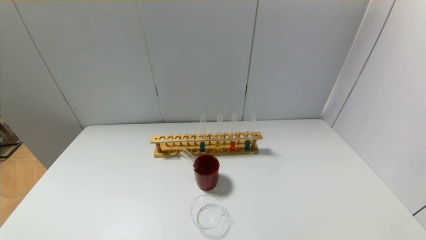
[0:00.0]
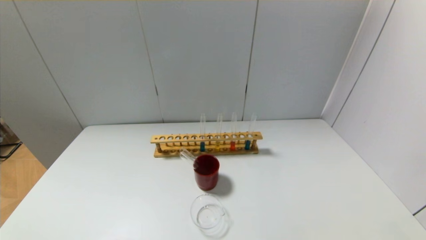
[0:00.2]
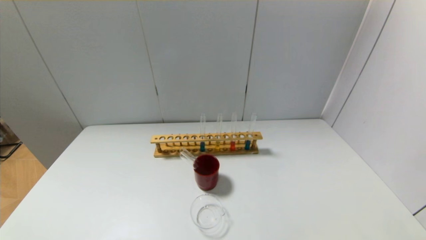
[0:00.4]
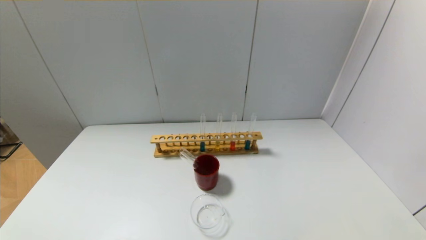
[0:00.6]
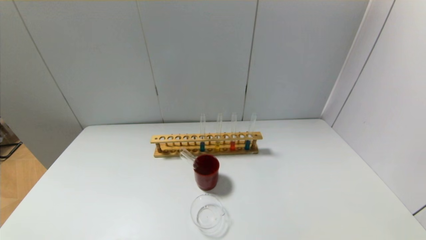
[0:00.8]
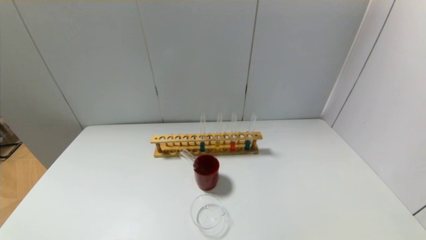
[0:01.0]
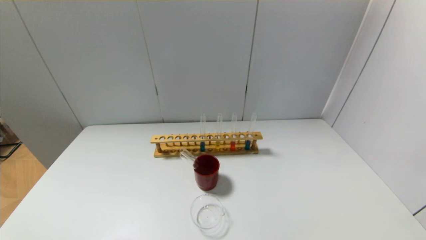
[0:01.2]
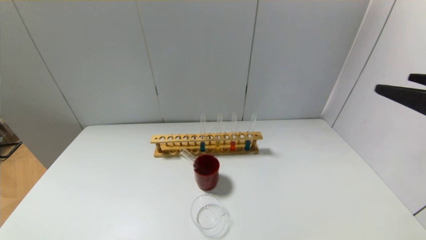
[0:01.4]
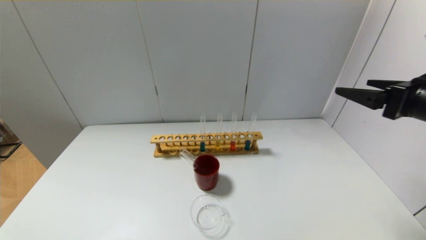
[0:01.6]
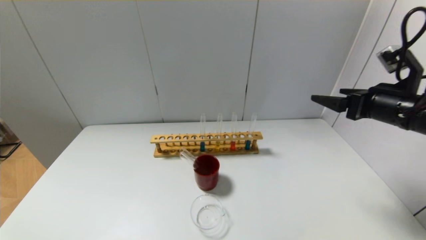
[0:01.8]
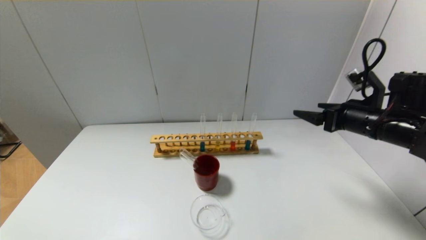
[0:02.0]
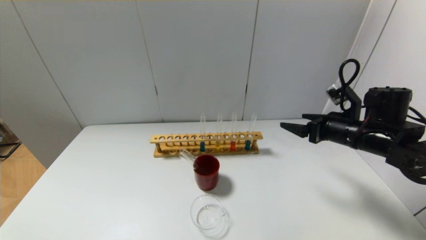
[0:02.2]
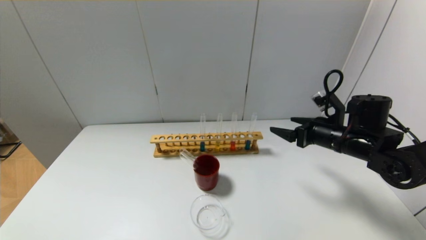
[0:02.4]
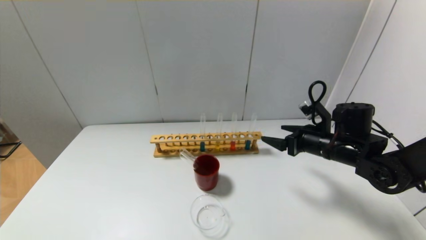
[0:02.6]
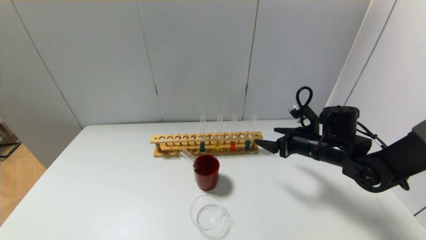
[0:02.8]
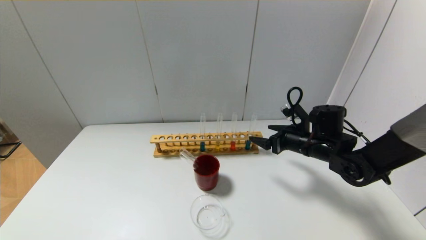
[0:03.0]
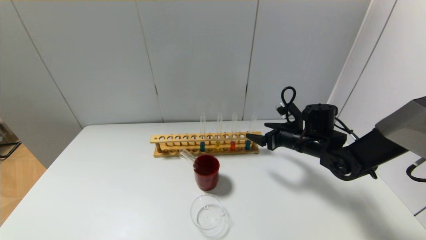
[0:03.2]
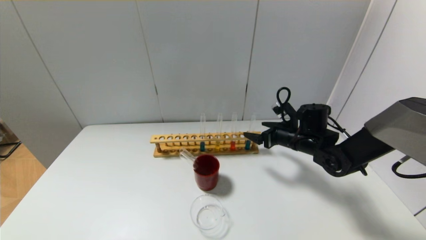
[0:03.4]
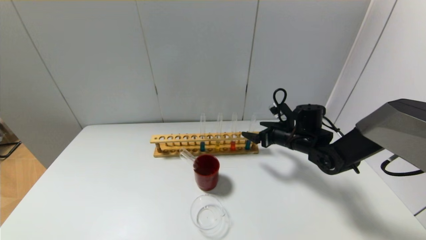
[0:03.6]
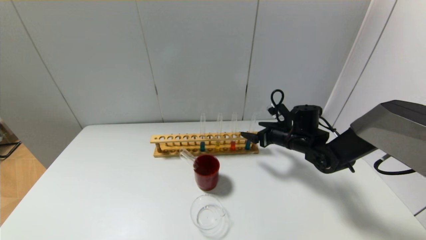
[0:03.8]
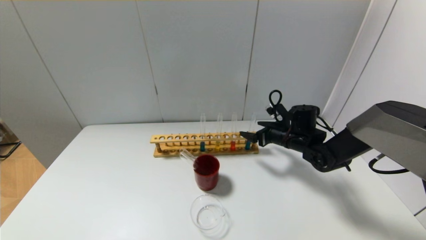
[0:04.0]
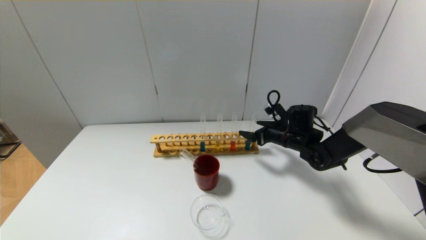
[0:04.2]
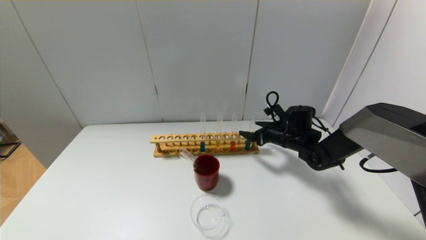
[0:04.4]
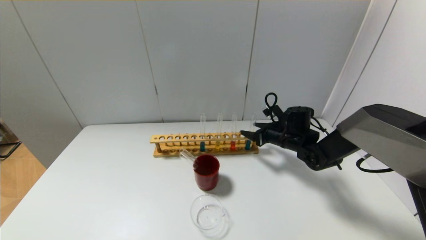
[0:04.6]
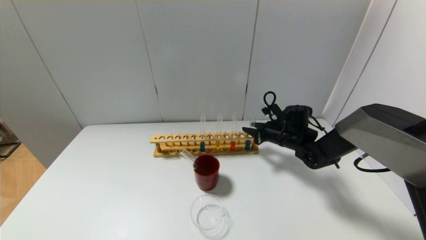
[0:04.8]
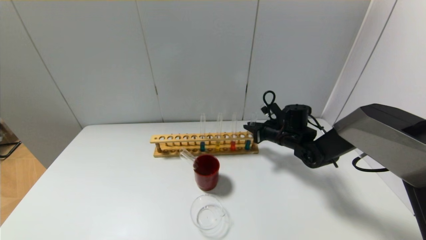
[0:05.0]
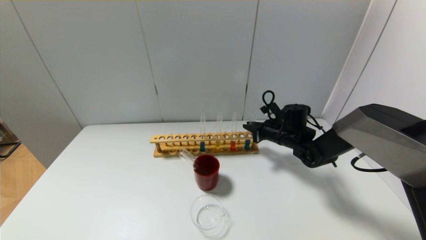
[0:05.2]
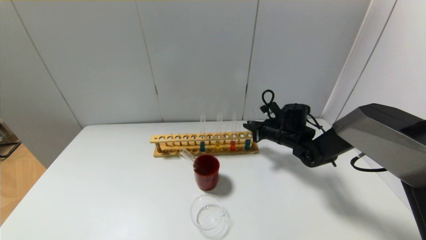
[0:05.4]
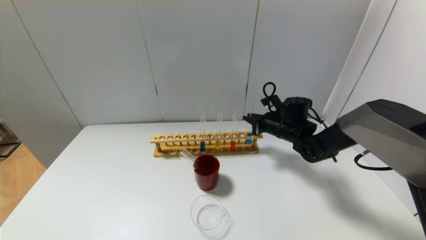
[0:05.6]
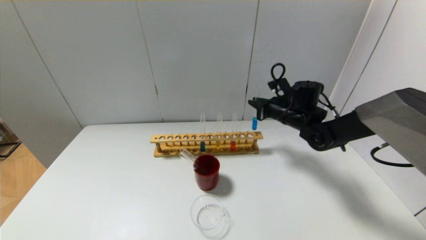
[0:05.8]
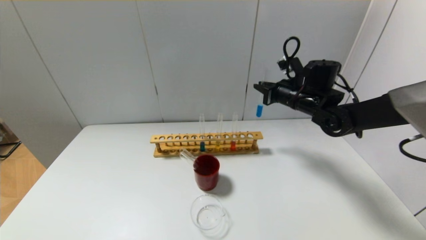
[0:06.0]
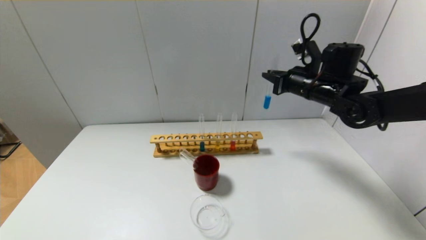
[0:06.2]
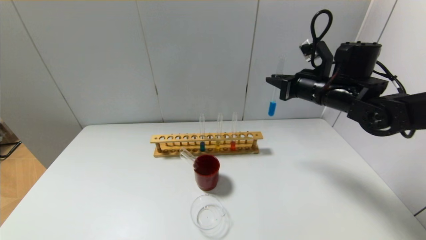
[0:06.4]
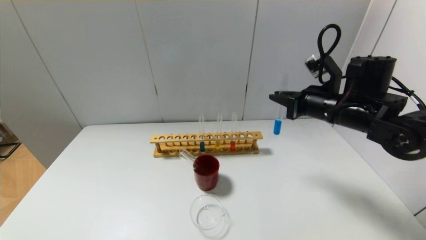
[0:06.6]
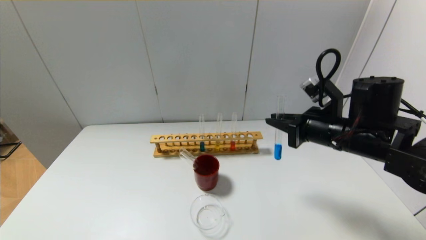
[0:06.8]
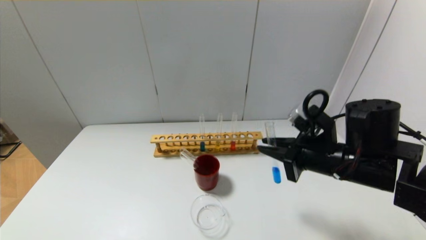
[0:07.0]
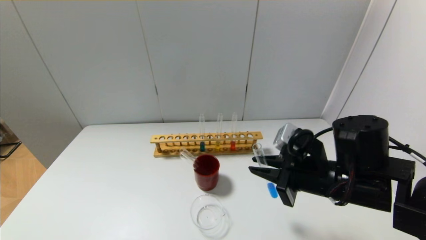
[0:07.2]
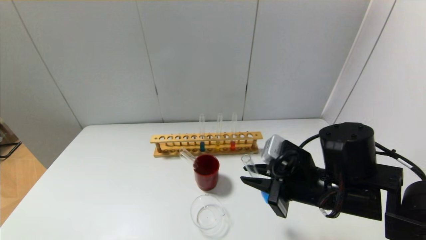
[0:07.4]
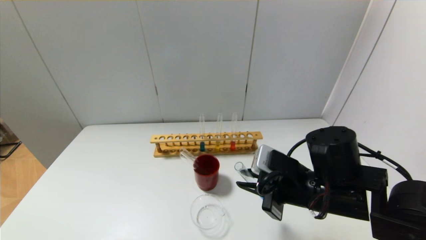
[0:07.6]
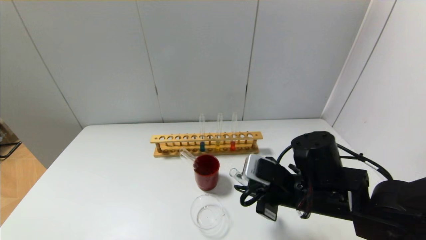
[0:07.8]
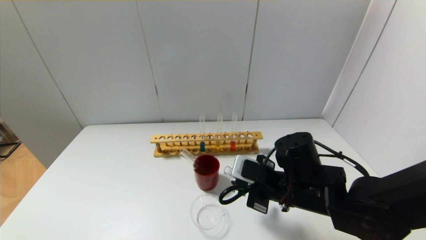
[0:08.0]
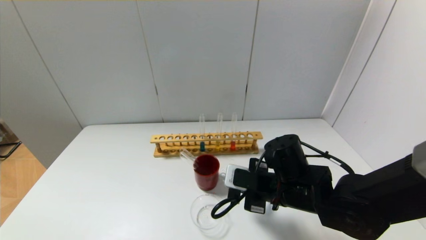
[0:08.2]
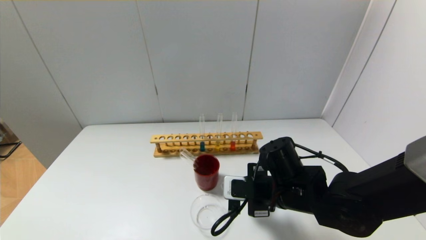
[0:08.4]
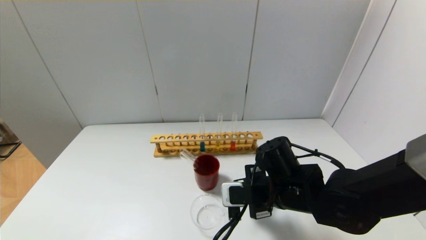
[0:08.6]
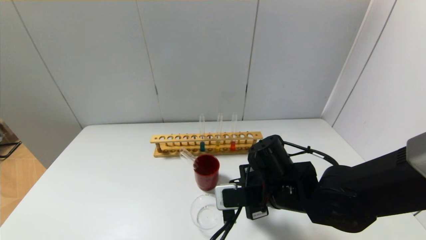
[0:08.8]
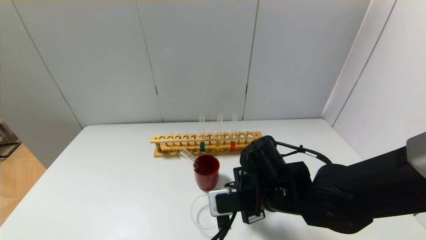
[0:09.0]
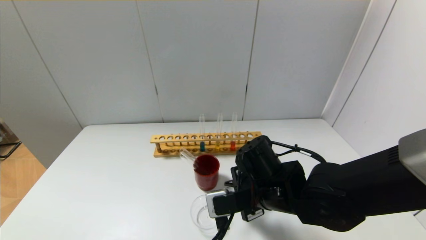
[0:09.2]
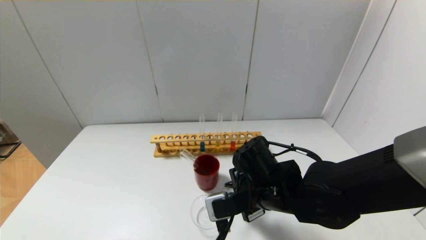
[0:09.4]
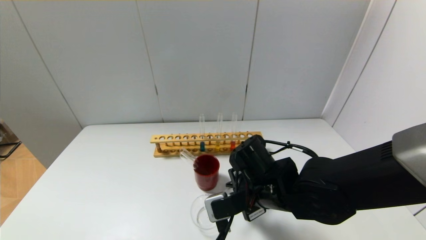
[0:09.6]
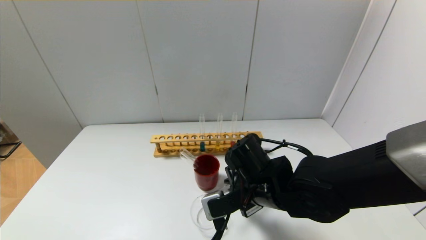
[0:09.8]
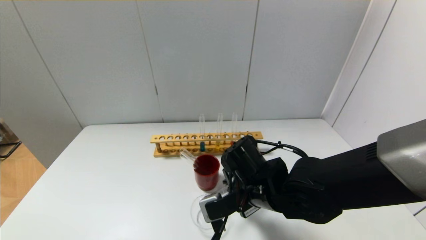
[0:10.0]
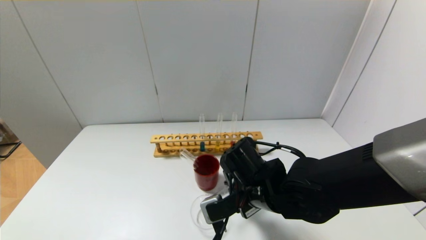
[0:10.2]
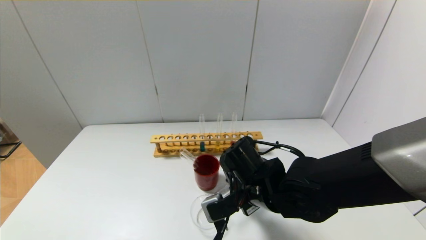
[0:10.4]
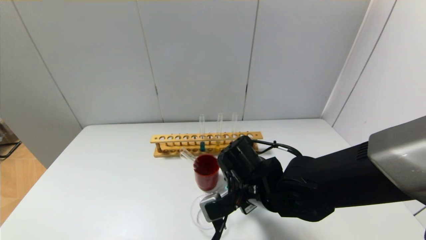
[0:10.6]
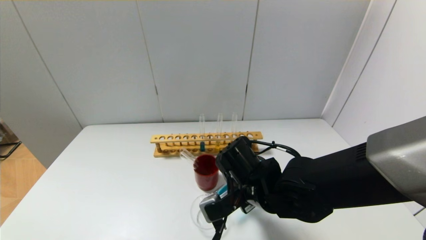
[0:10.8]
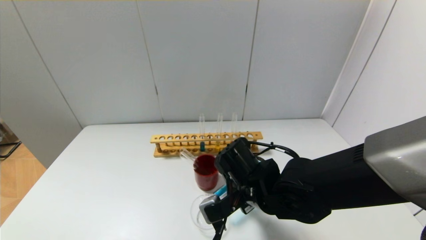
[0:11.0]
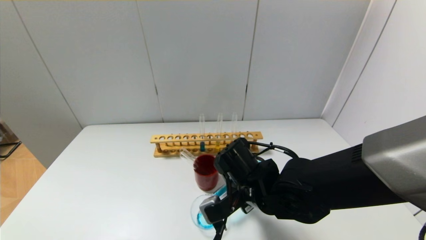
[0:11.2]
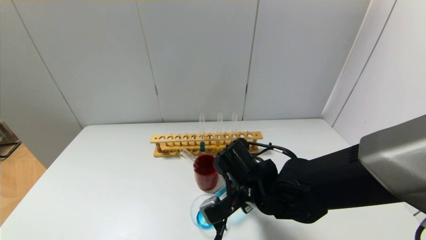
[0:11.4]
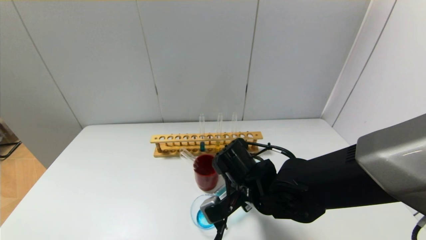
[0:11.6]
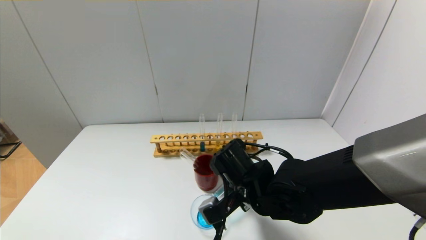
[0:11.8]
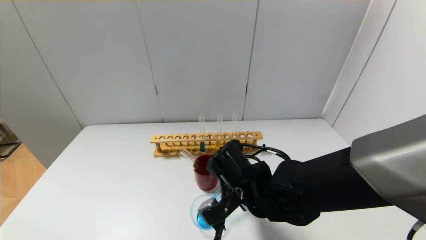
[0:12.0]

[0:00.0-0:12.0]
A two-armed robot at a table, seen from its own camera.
Step, 0:00.0 to 0:05.0: Grasp the blue reagent with the right gripper.
0:00.0 to 0:01.6: The right gripper goes about 30 cm forward and upward.
0:01.6 to 0:03.0: The right gripper shifts roughly 25 cm downward, forward and to the left.
0:03.0 to 0:04.4: The right gripper heads forward, covering roughly 5 cm.
0:04.4 to 0:06.0: The right gripper shifts some 15 cm upward, and closes its fingers.
0:06.0 to 0:07.6: The right gripper moves backward, some 20 cm.
0:07.6 to 0:09.0: The right gripper heads to the left, covering approximately 5 cm.
0:10.4 to 0:12.0: The grippers make only small movements.

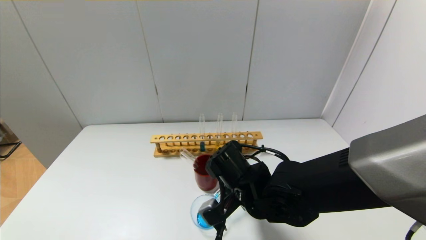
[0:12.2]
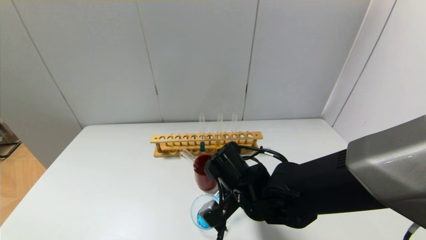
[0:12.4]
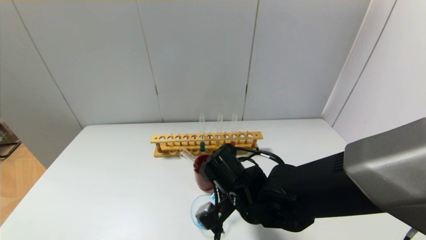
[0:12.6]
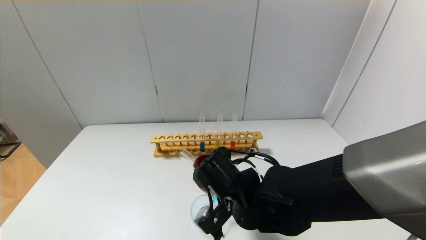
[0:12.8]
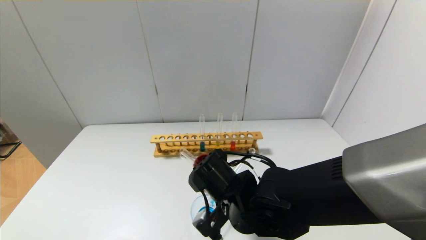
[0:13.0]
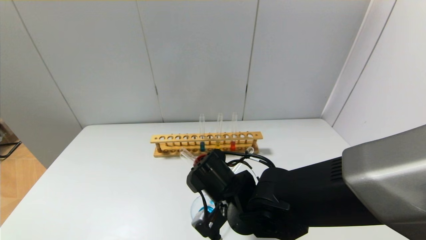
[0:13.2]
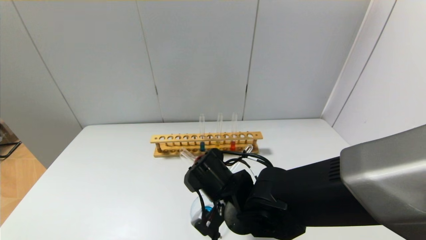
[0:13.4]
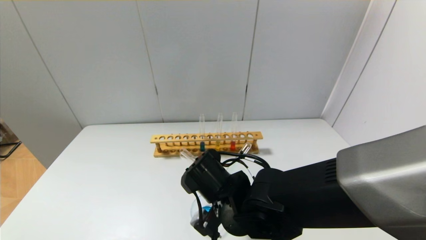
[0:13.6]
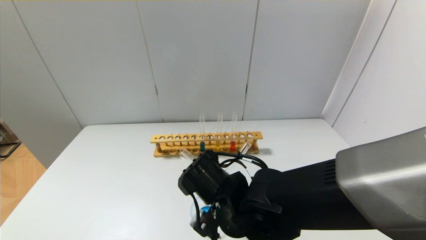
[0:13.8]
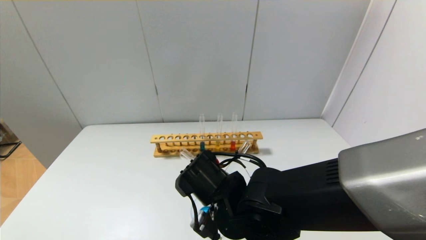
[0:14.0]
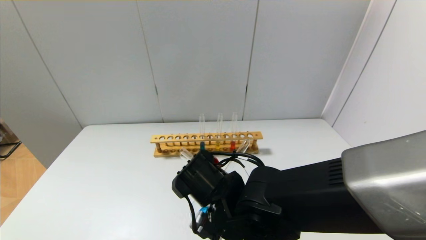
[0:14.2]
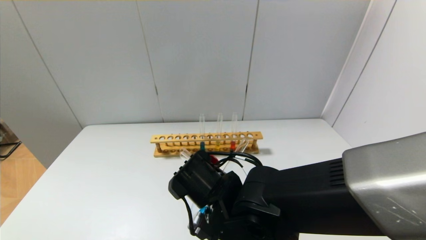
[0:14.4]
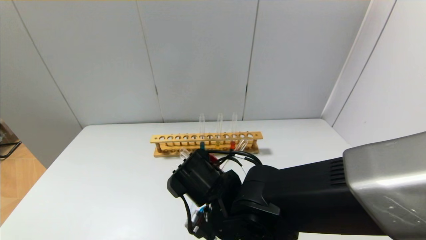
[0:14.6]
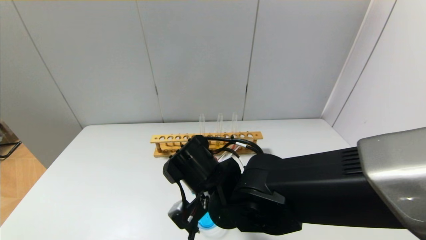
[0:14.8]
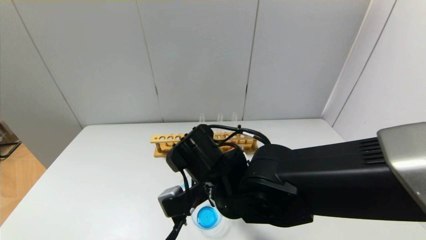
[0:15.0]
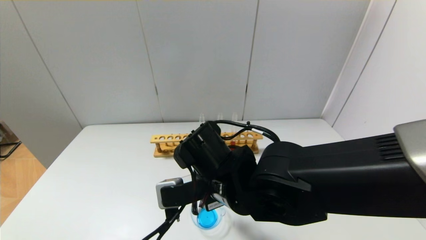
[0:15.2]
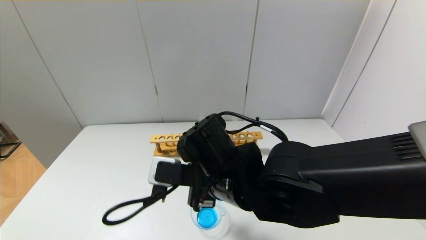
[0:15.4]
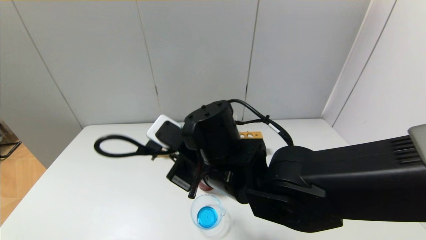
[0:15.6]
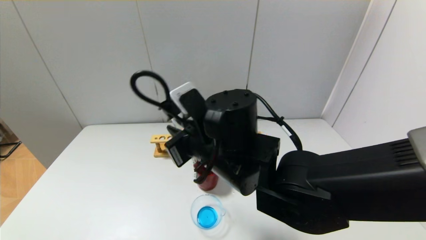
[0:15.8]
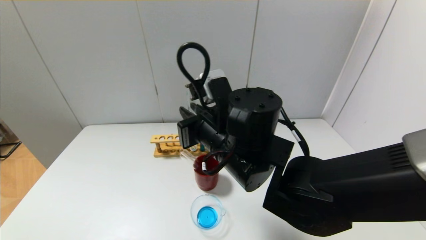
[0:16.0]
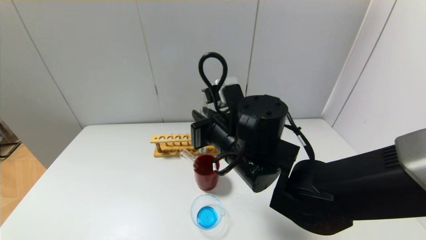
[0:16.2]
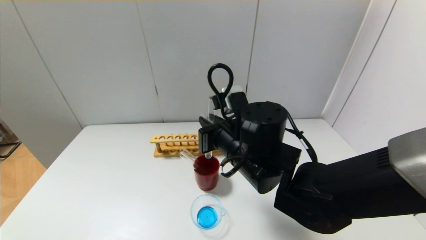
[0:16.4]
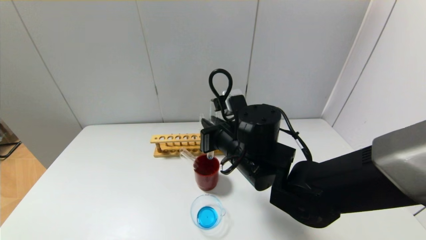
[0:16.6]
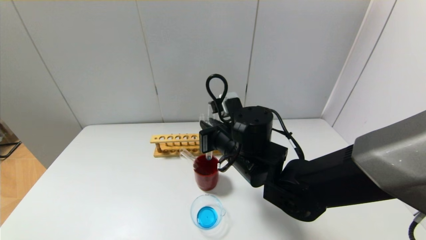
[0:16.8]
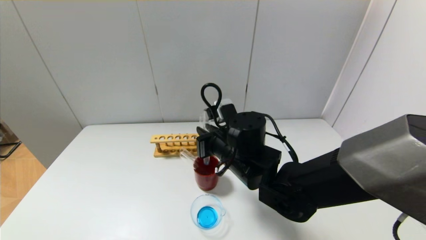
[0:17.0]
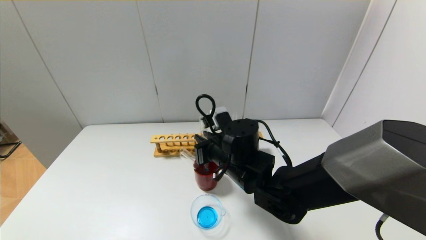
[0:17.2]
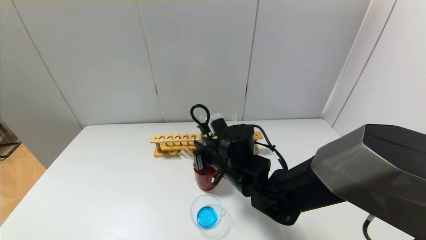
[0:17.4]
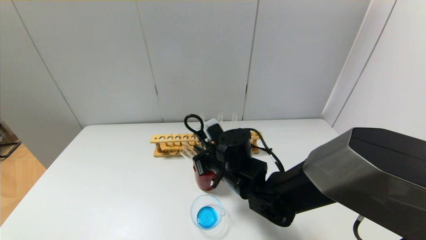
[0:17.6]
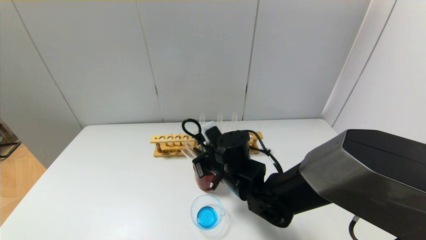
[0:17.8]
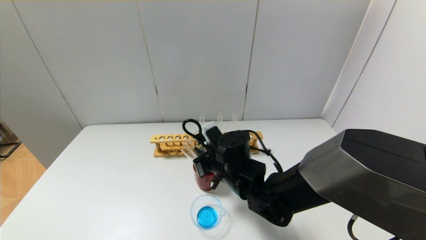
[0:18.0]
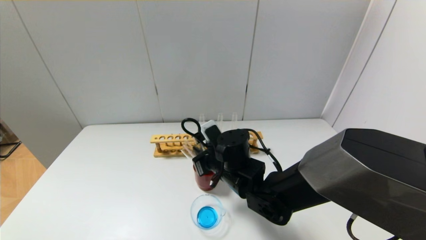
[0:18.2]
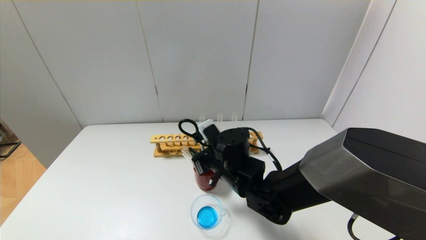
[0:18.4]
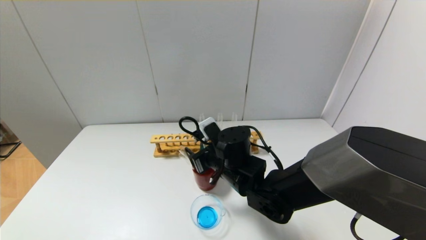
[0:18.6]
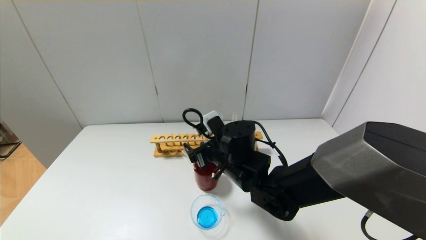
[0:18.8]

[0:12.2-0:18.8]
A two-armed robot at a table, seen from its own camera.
Step, 0:12.2 to 0:15.0: Pour the blue reagent into the graduated cylinder with the right gripper.
Step, 0:15.2 to 0:18.6: Place the test tube into the brown cup with the right gripper.
0:12.2 to 0:13.8: The grippers move only a little.
0:13.8 to 0:15.4: The right gripper goes about 5 cm upward.
0:15.4 to 0:17.2: The right gripper is displaced forward by approximately 5 cm.
0:17.2 to 0:18.8: The right gripper opens up.
